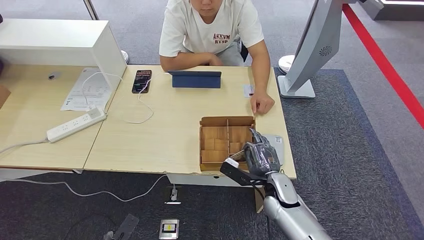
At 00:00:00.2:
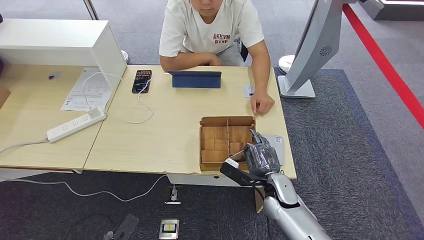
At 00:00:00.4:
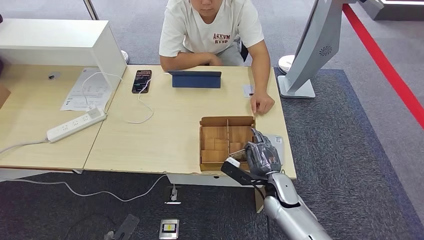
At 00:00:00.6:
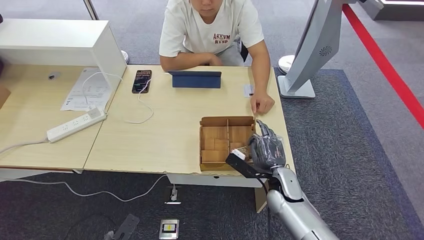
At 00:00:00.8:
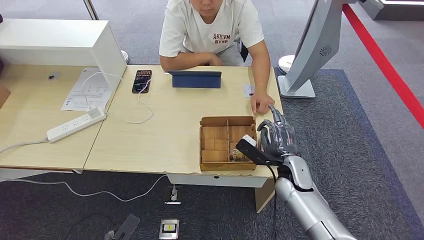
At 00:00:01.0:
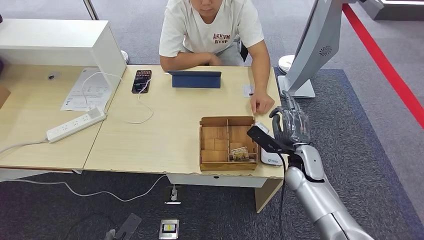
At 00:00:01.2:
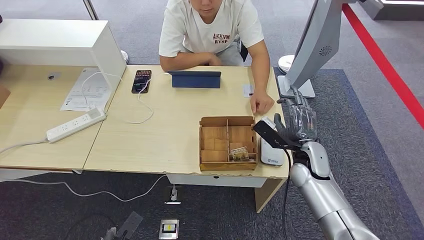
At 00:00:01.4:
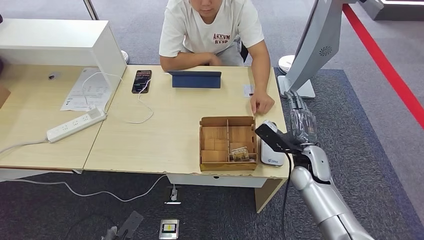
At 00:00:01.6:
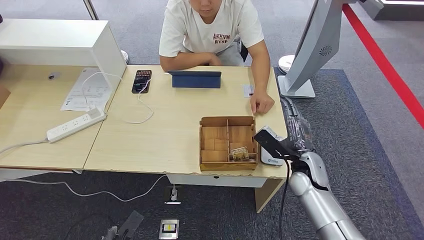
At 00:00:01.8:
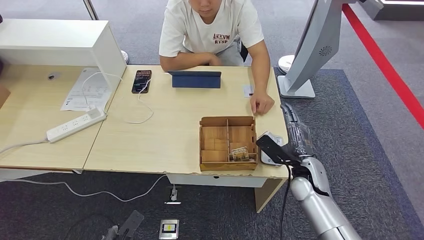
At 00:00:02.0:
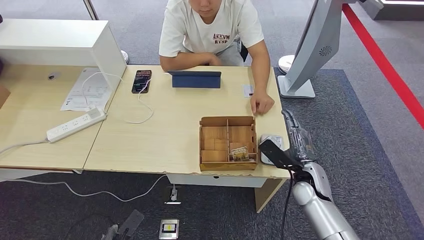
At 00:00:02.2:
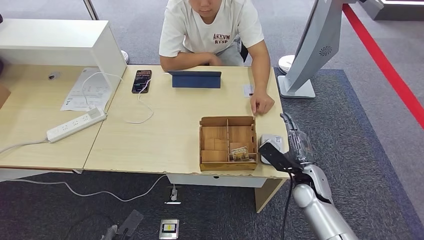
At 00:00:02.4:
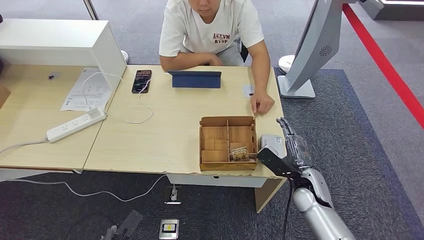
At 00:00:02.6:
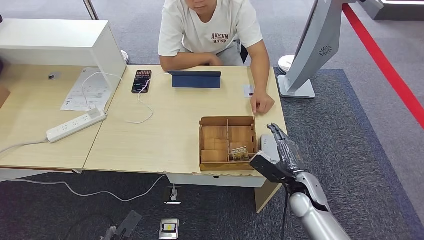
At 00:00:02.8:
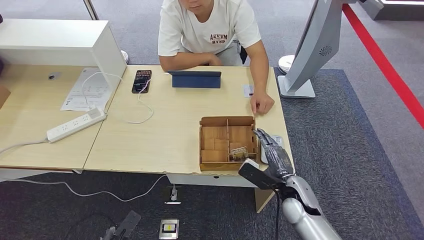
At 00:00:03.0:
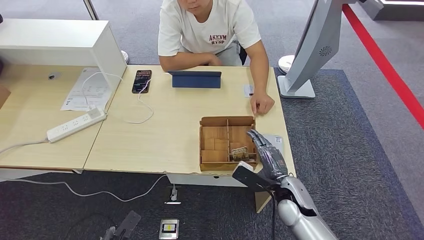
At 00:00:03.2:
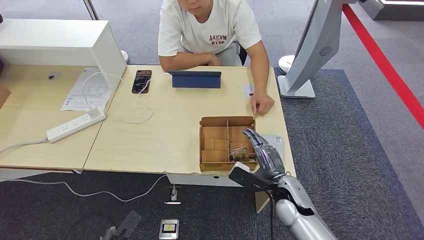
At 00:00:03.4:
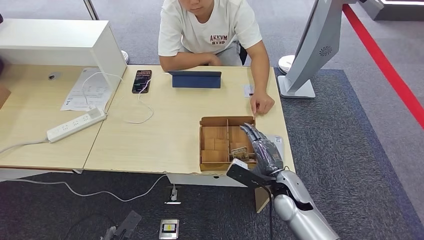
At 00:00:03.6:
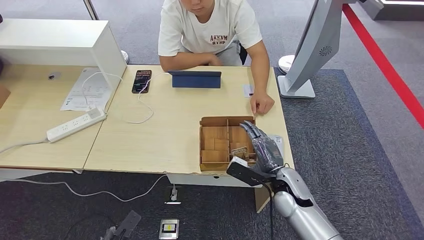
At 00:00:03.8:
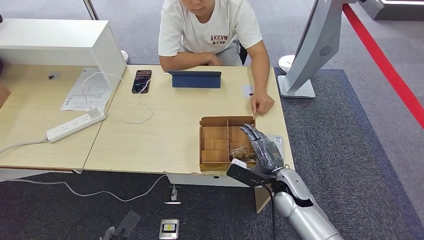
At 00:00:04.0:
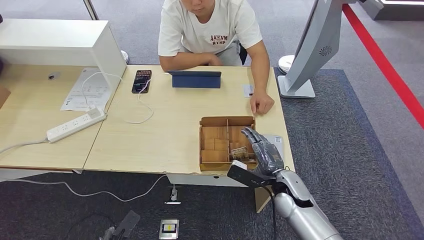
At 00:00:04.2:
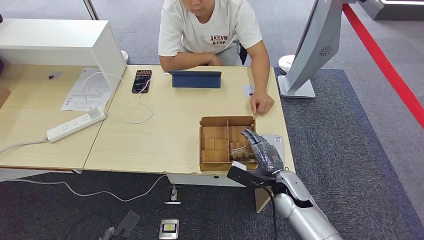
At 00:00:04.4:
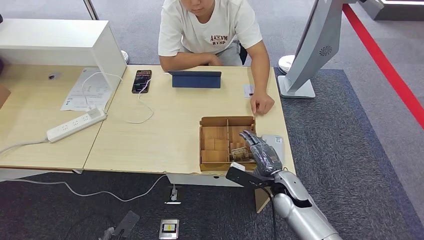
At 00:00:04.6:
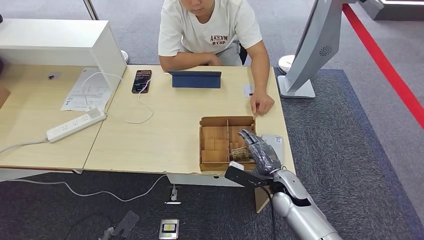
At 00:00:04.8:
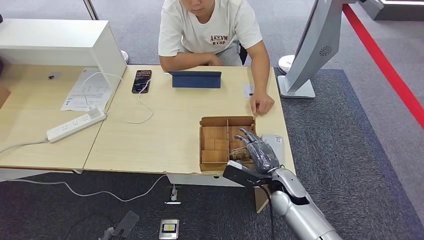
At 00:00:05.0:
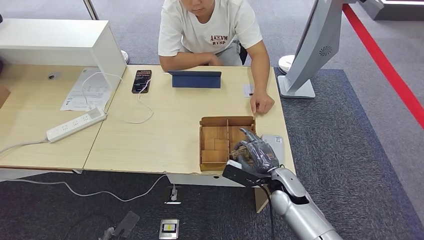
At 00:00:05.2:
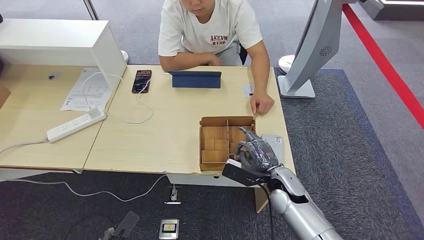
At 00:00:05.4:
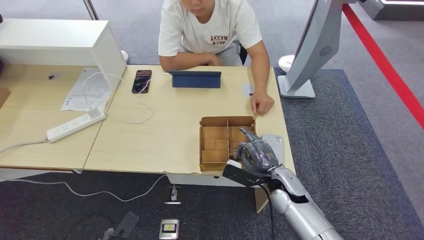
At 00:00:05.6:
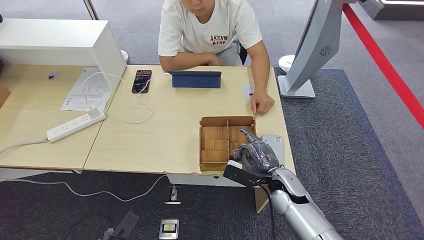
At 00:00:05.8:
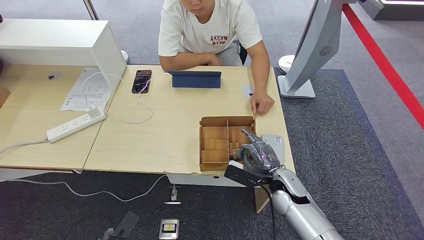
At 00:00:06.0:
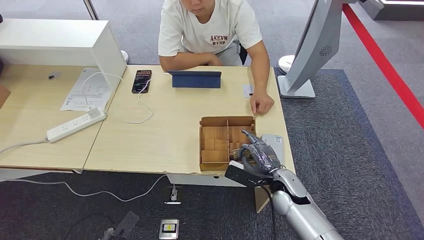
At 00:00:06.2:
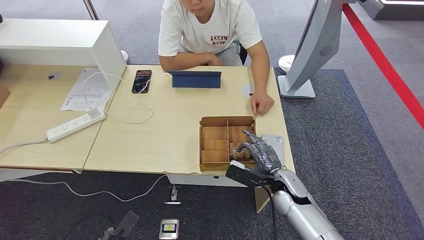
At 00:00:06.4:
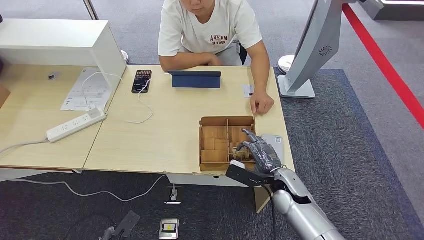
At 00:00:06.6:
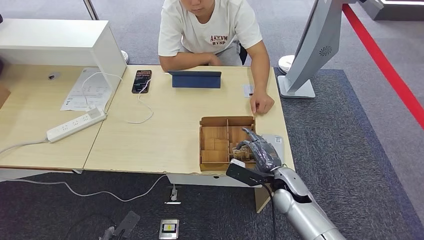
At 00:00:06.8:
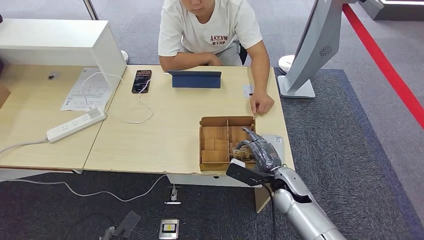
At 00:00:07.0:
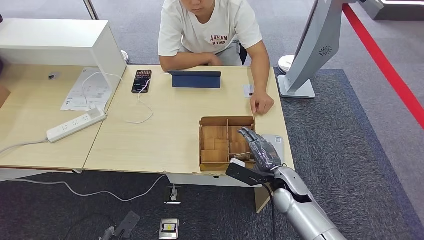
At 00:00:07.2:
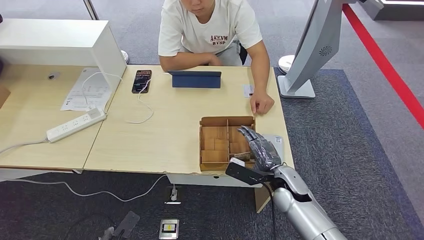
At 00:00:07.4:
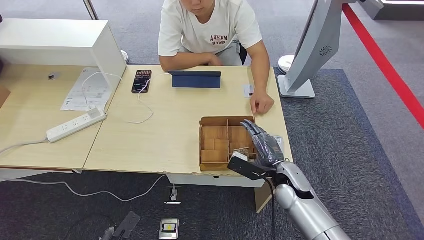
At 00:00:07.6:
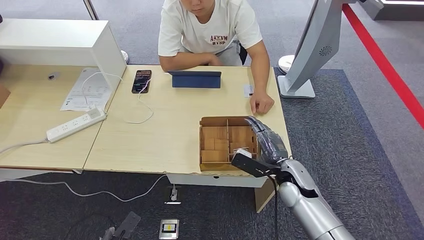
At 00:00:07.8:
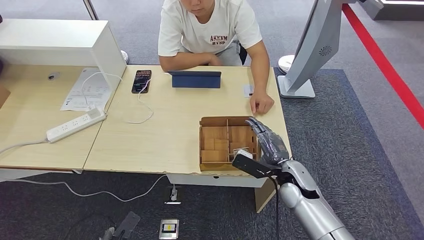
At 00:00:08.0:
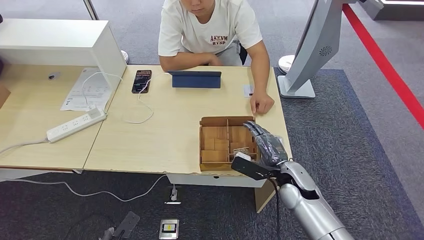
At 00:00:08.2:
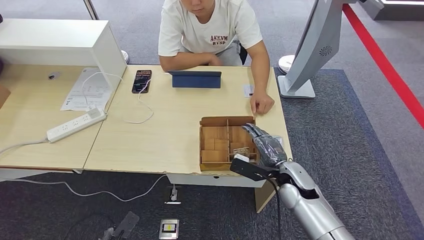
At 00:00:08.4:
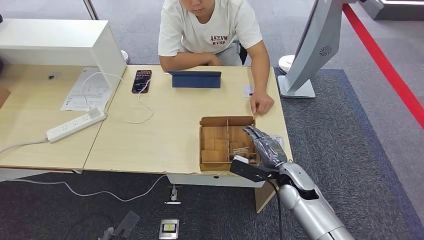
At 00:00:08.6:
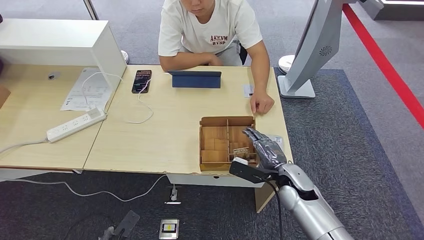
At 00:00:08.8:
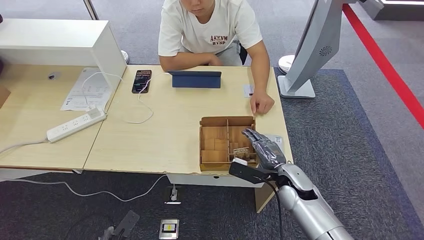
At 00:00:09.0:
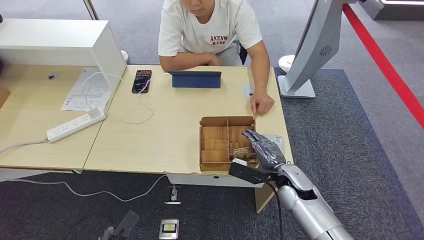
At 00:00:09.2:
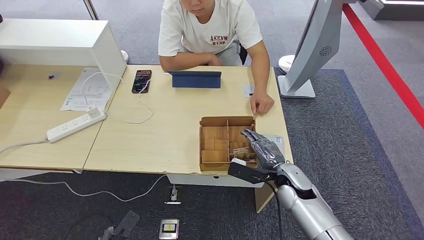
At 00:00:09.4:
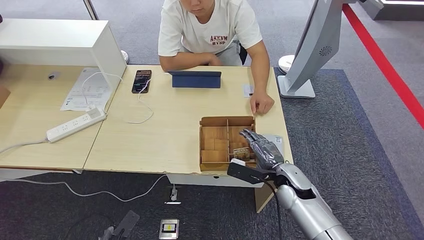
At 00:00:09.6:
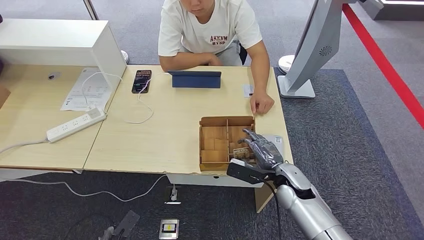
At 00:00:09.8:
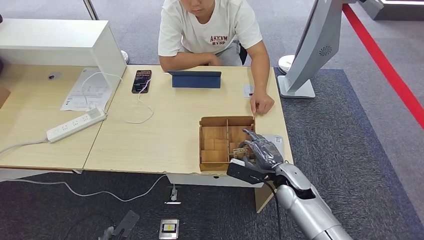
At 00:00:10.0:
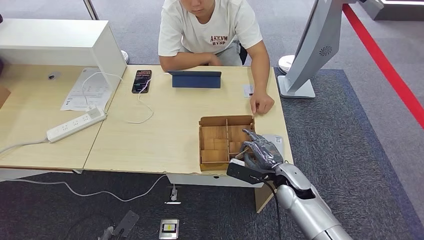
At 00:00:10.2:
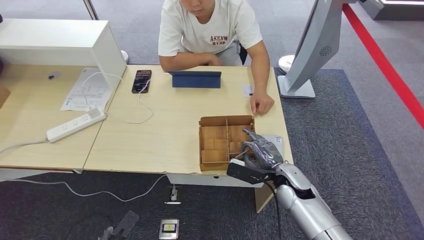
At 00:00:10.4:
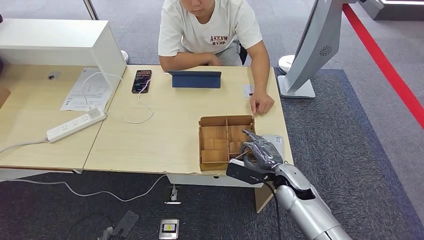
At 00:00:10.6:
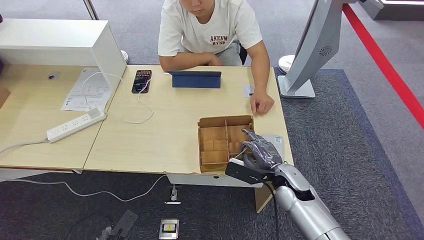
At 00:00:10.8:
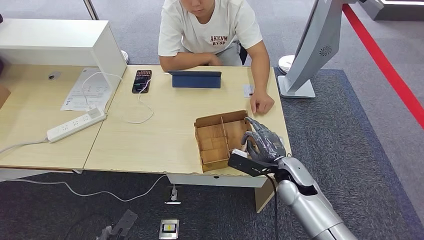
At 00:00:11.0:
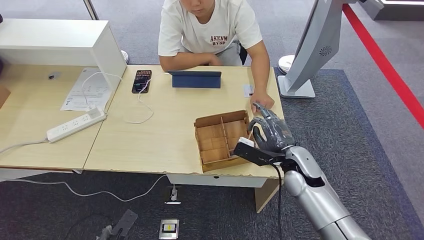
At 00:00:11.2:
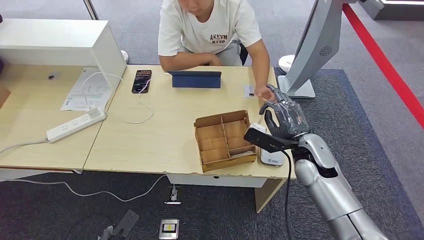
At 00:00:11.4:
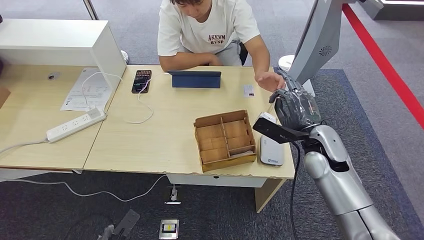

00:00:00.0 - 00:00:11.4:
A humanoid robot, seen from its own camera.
Step, 00:00:07.2 - 00:00:11.4: Pick up the room key from the key card box.
00:00:00.0 - 00:00:01.4: The right hand travels upward, to the right and forward by about 10 cm.
00:00:01.4 - 00:00:02.8: The right hand travels backward and downward by approximately 10 cm.
00:00:02.8 - 00:00:05.6: The hands move only a little.
00:00:05.6 - 00:00:07.2: Both hands stay about where they are.
00:00:07.2 - 00:00:08.6: The hands move only a little.
00:00:08.6 - 00:00:10.0: Neither hand changes place.
00:00:10.0 - 00:00:11.4: The right hand travels upward by about 10 cm.

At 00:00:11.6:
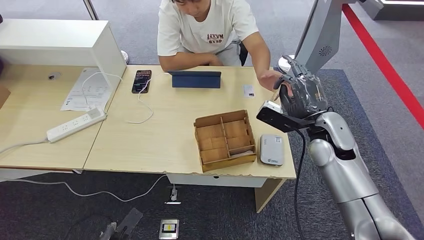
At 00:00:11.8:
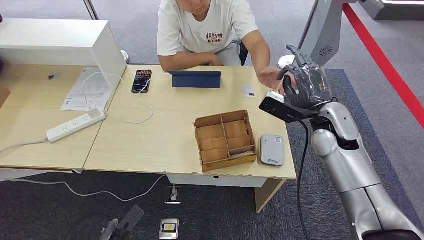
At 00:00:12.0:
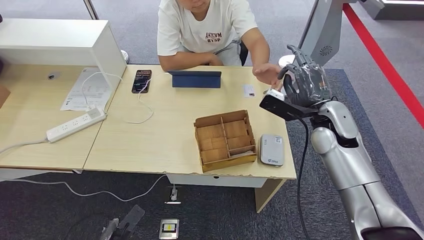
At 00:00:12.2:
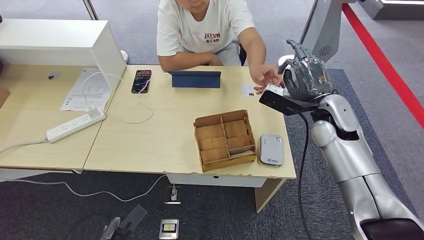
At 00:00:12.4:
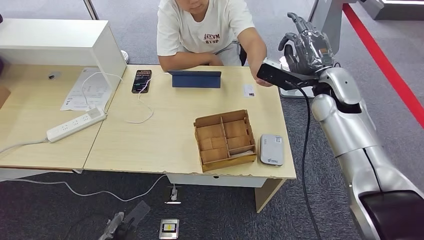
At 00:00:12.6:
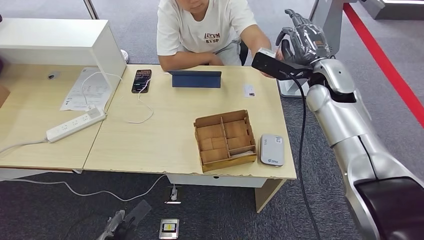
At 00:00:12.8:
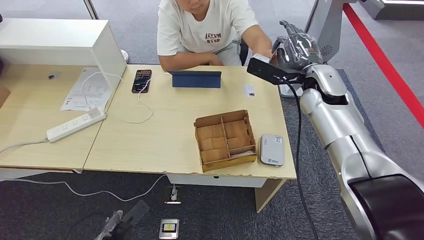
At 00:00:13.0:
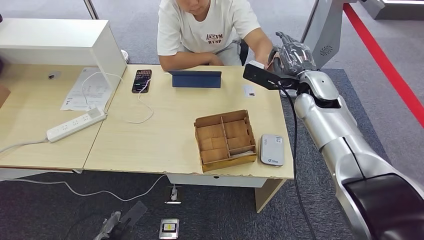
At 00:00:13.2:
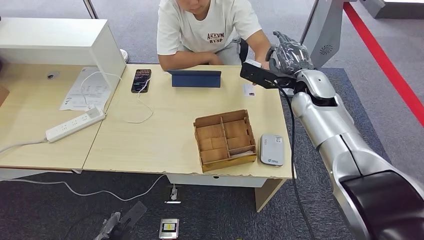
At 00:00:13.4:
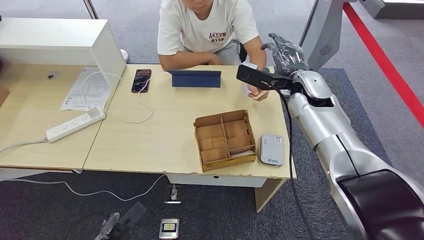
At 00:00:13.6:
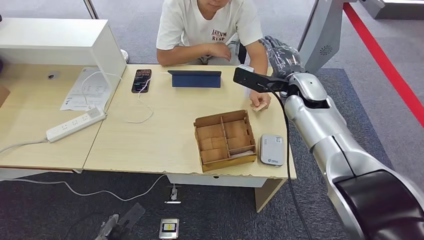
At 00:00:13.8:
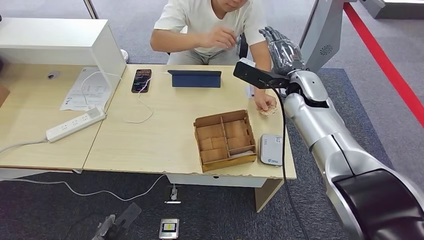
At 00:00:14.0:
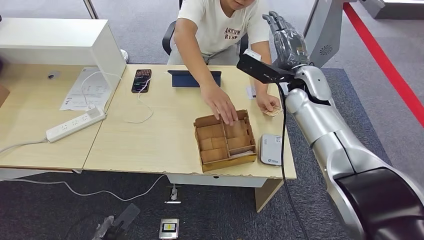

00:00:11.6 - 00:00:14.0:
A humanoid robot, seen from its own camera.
Step, 00:00:11.8 - 00:00:14.0: Hand the room key to the person.
00:00:11.6 - 00:00:12.8: The right hand travels upward and forward by roughly 10 cm.
00:00:12.8 - 00:00:14.0: There are only small adjustments of the hands.
